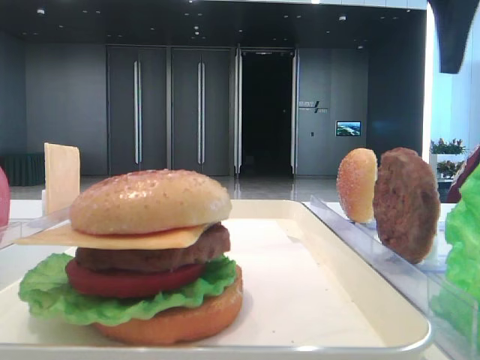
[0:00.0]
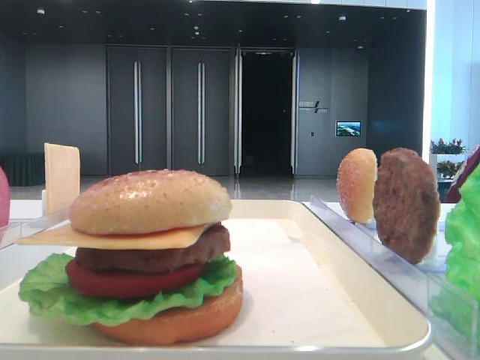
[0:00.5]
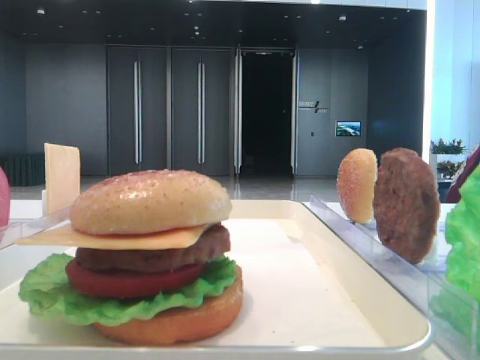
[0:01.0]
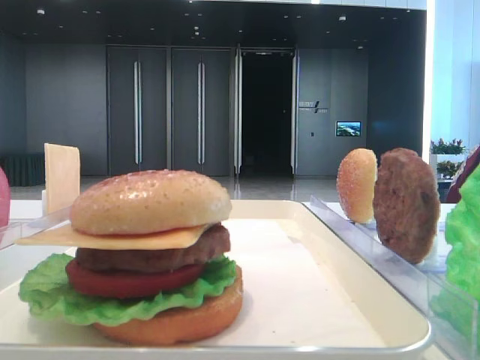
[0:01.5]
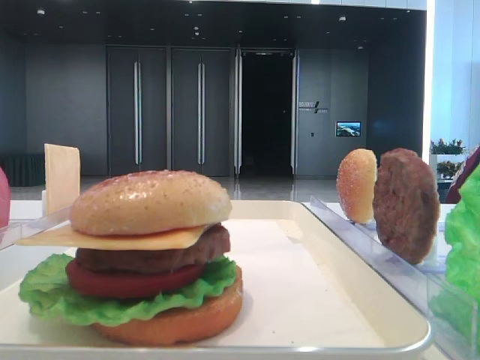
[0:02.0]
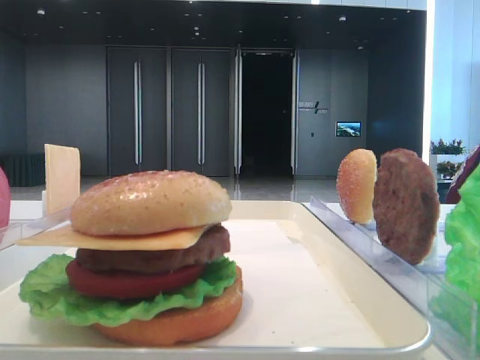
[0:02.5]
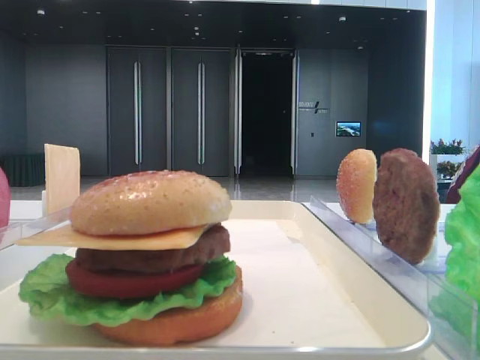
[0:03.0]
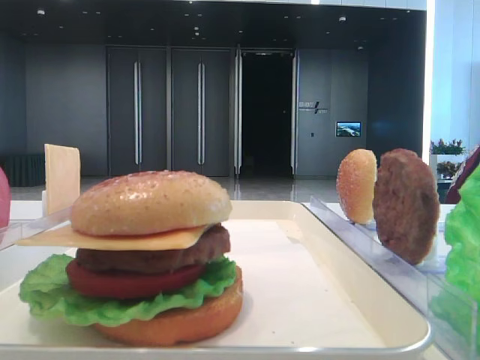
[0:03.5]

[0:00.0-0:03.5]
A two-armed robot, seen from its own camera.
0:00.0 to 0:02.0: The right gripper heads backward, covering roughly 25 cm.

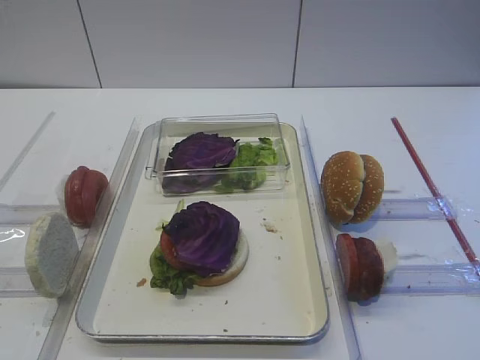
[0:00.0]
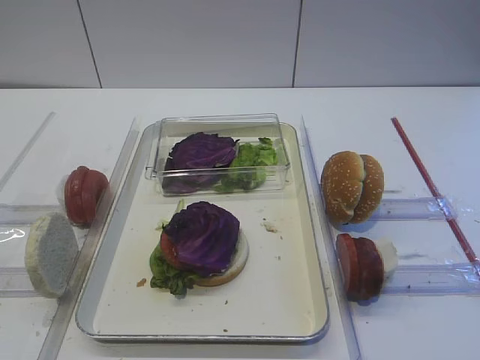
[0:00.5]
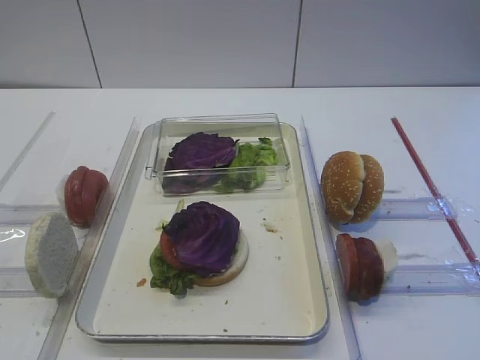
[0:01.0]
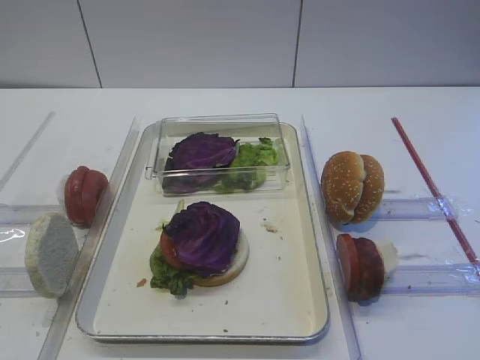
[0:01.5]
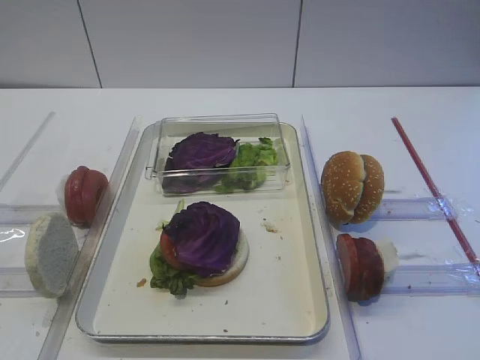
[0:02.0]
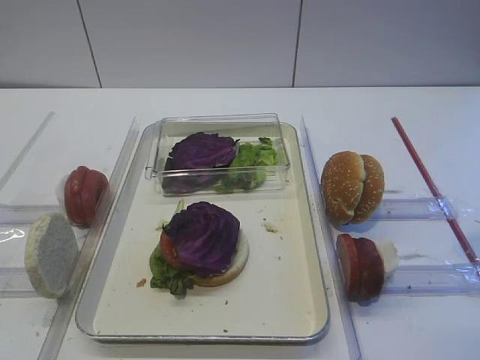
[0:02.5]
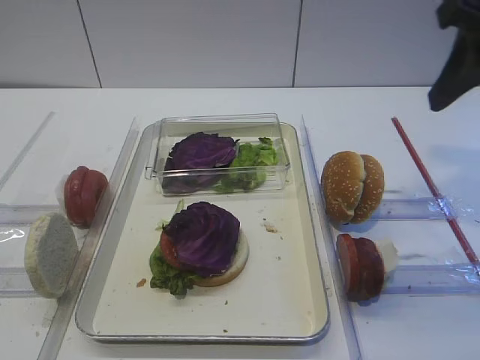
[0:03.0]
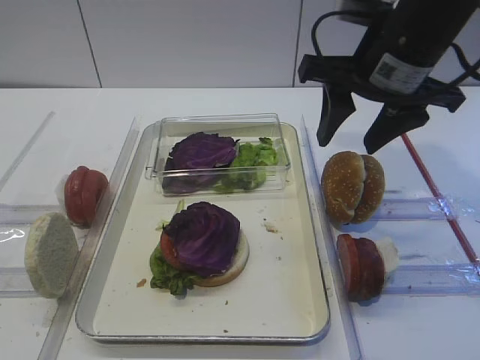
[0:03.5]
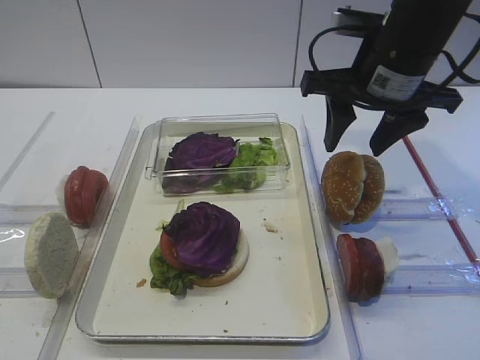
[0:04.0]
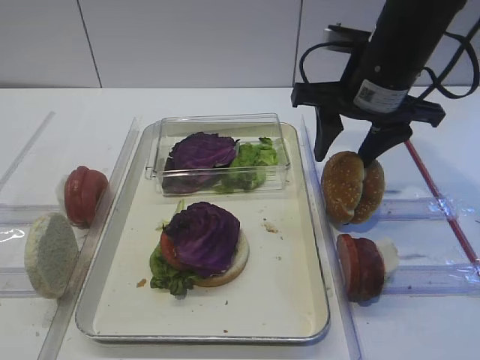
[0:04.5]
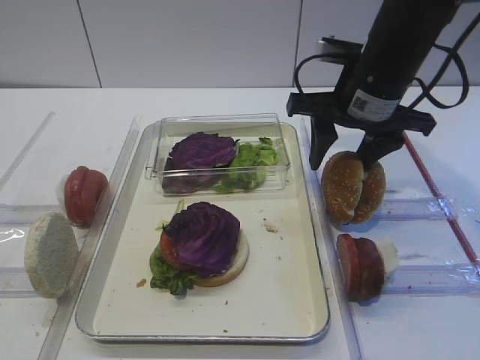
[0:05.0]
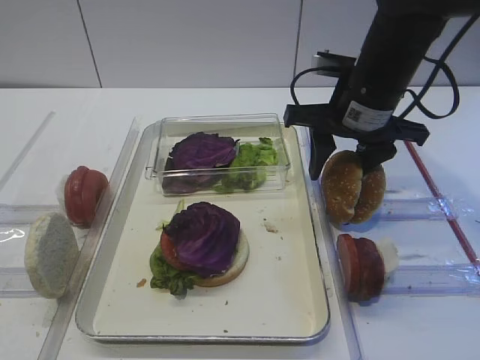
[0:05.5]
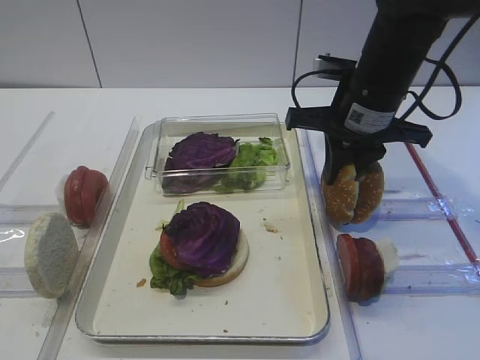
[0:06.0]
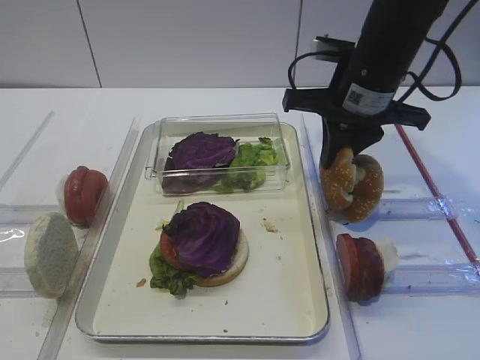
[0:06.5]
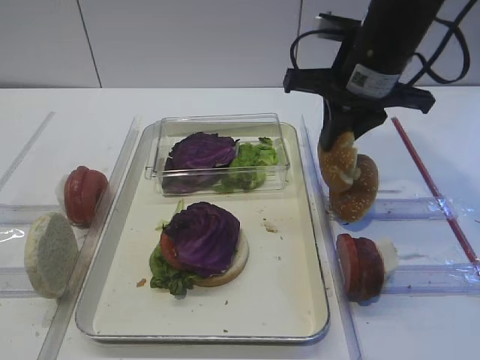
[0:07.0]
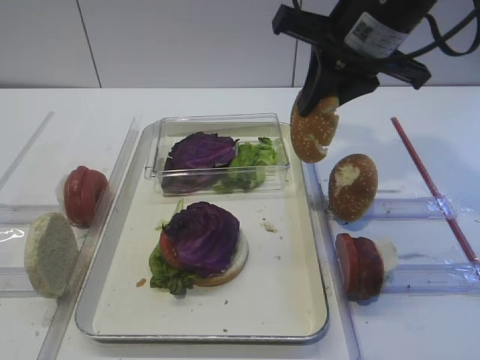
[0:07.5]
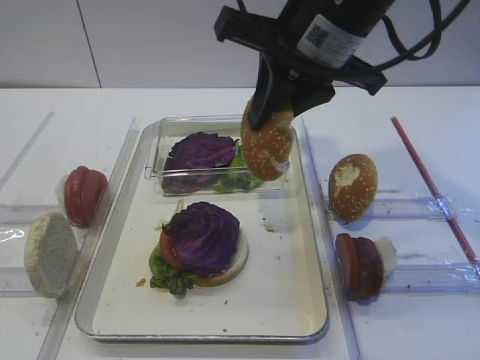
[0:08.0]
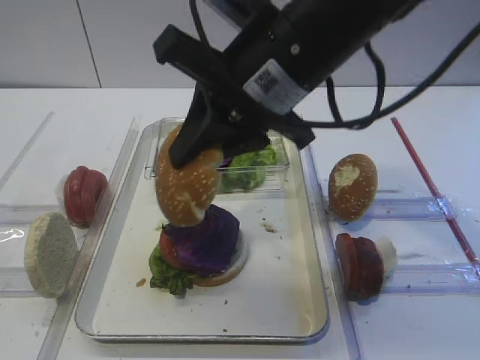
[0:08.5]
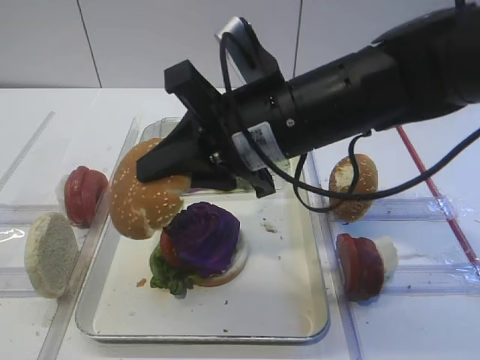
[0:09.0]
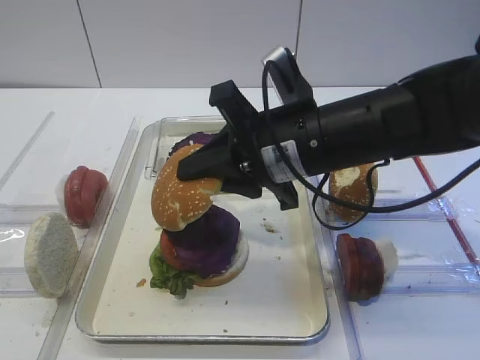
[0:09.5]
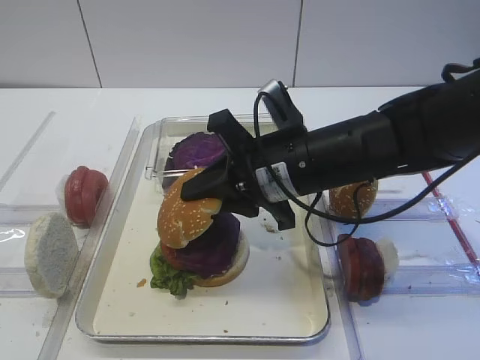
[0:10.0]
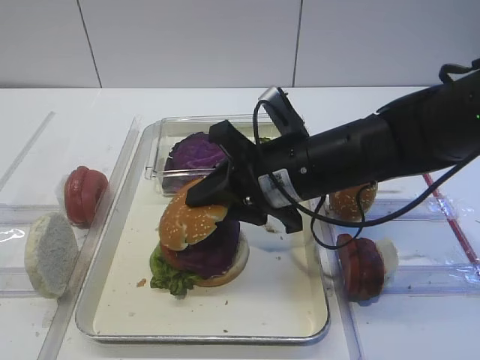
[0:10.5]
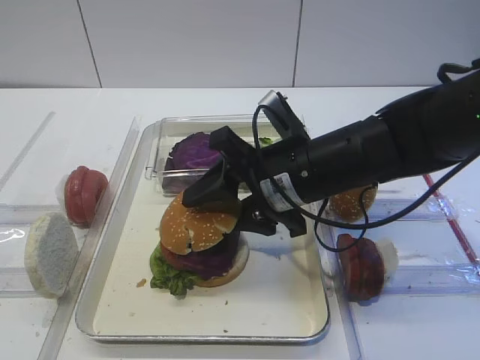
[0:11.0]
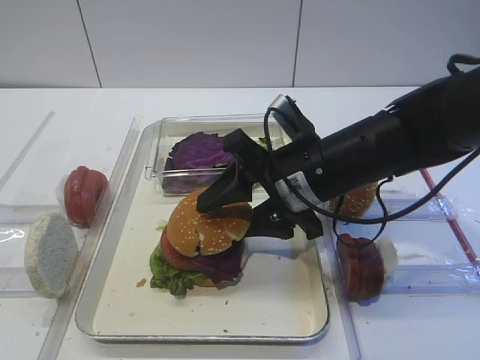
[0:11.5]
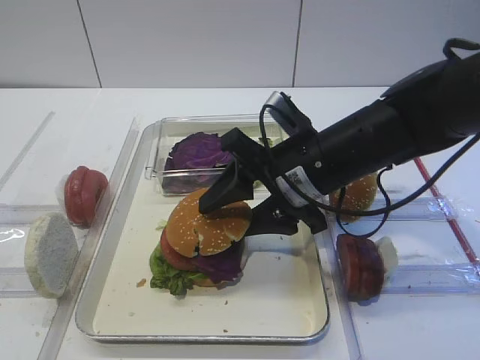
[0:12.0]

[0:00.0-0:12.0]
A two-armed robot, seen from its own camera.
Step, 0:00.0 to 0:07.0: Pick up the hamburger lid with the right gripper.
0:02.0 to 0:04.0: The right gripper goes about 25 cm forward and to the left.
0:04.0 to 0:06.0: The right gripper changes place by roughly 5 cm, and closes up.
0:06.0 to 0:08.0: The right gripper moves upward, to the left and backward, approximately 15 cm.
0:08.0 to 0:10.0: The right gripper goes roughly 15 cm downward.
0:10.0 to 0:12.0: The right gripper opens its fingers.

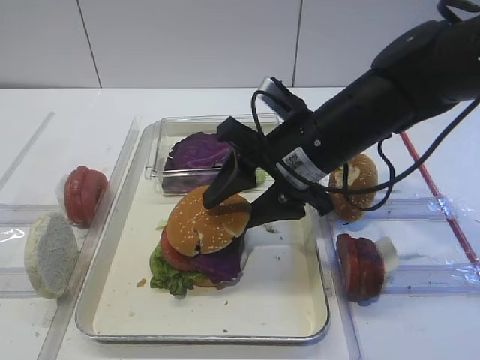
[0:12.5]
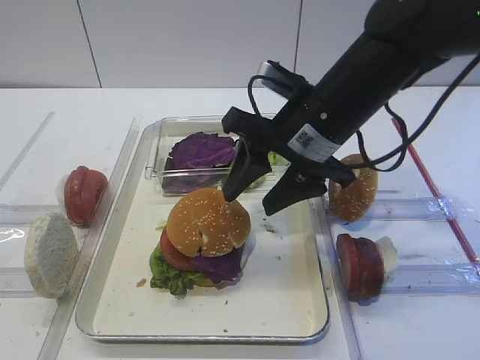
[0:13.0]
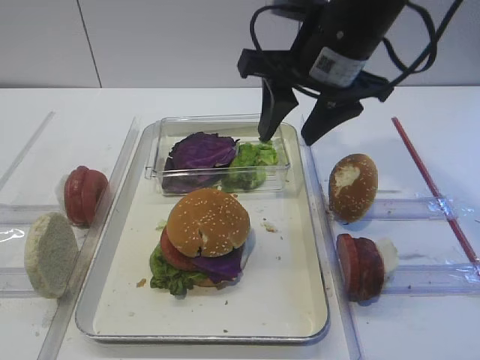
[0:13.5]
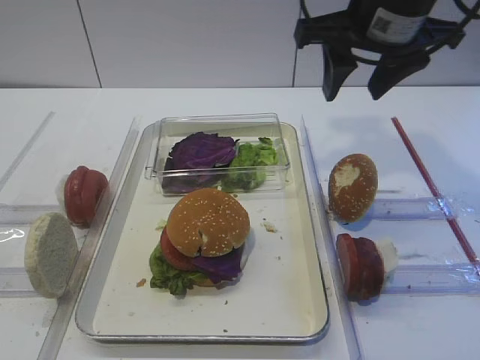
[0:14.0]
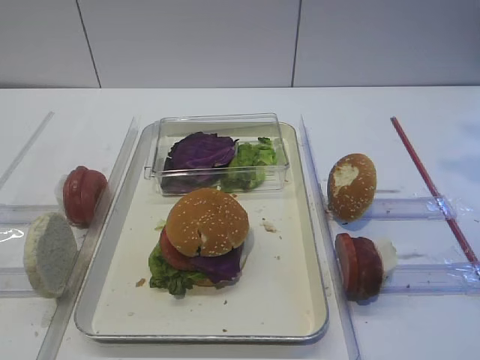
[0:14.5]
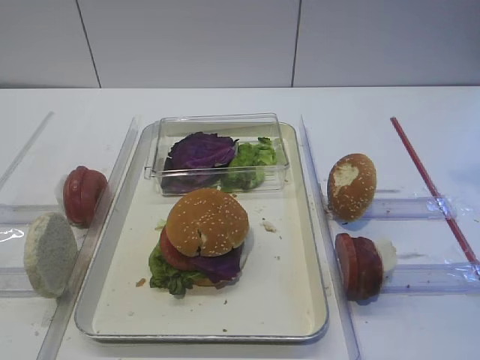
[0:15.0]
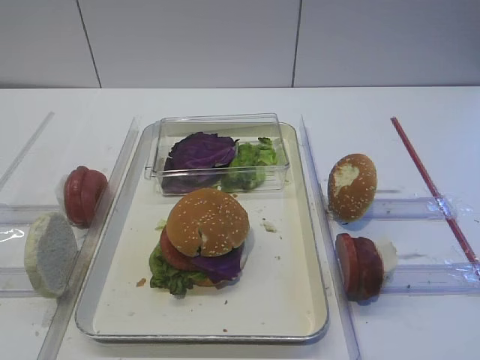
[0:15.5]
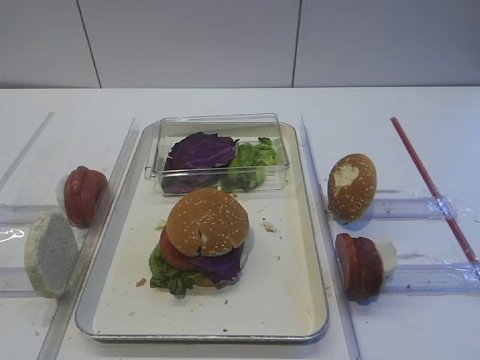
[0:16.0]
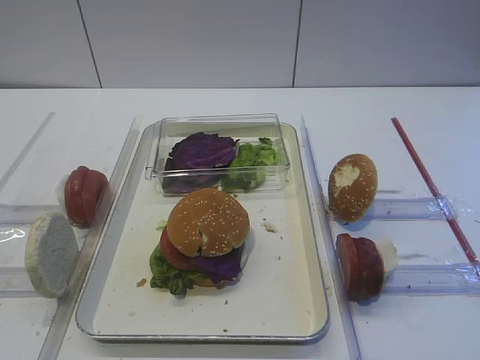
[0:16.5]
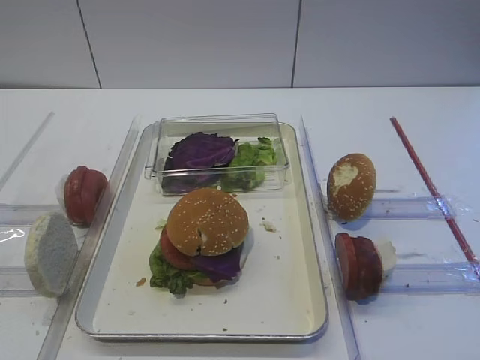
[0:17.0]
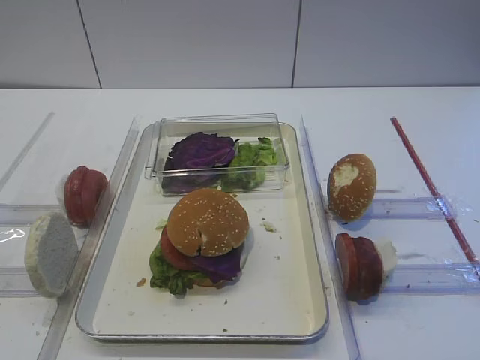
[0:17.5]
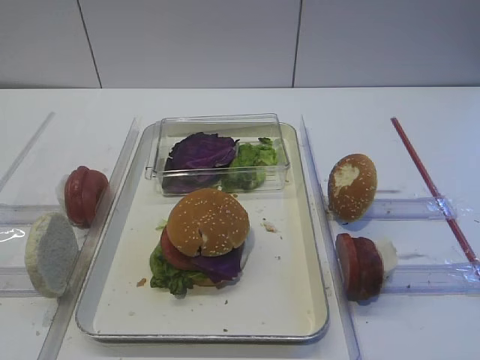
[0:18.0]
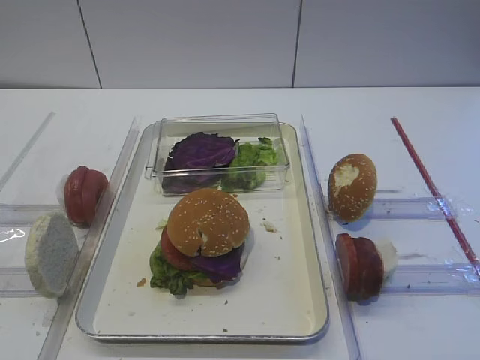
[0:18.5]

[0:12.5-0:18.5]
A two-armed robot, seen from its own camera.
0:12.5 to 0:14.5: The right gripper goes roughly 25 cm to the right and upward.

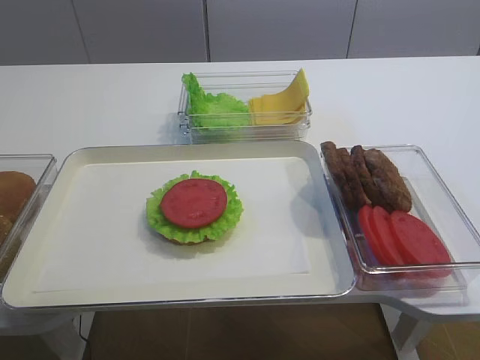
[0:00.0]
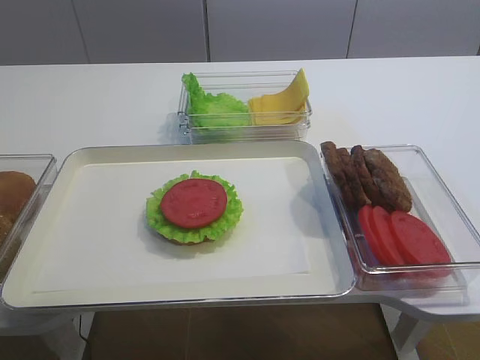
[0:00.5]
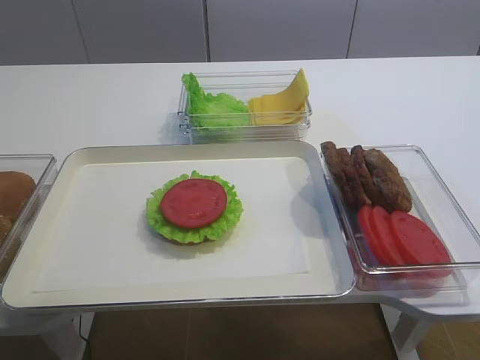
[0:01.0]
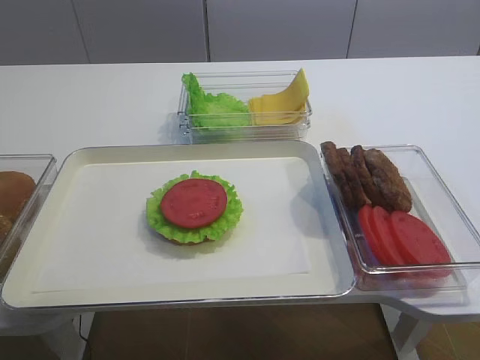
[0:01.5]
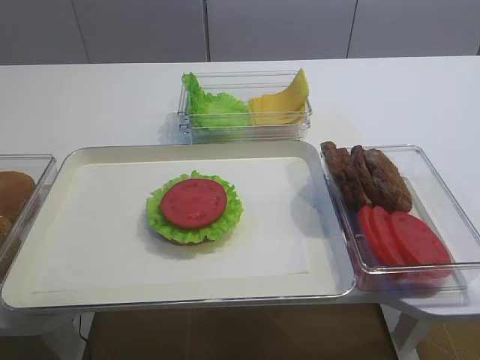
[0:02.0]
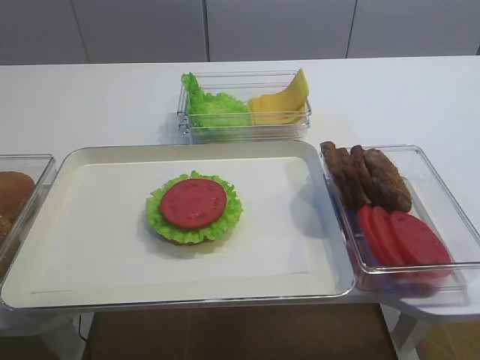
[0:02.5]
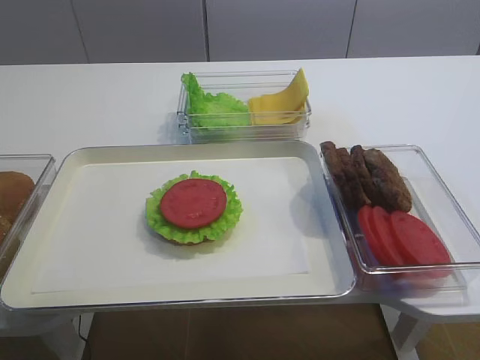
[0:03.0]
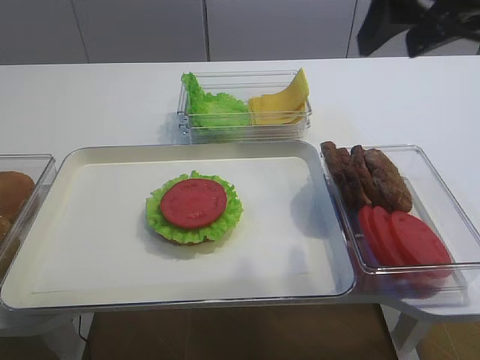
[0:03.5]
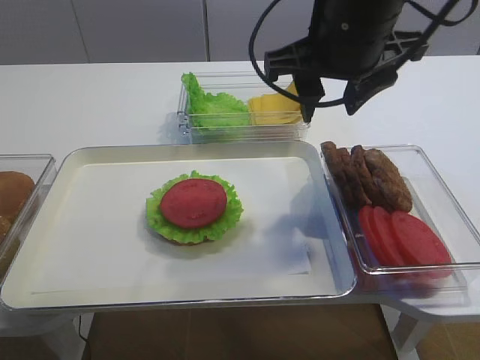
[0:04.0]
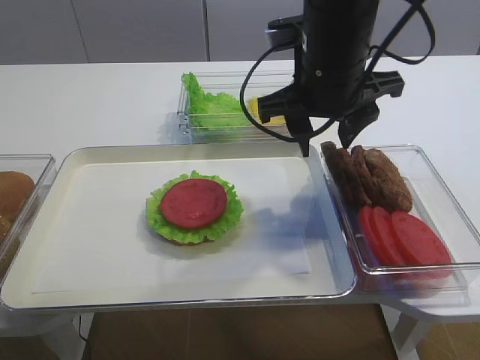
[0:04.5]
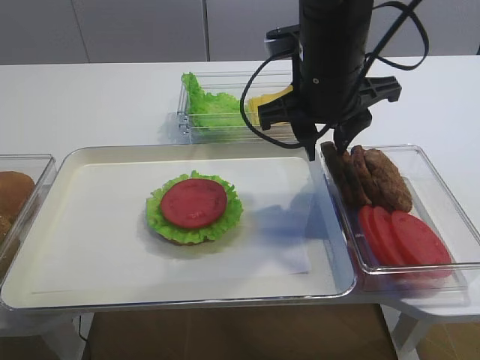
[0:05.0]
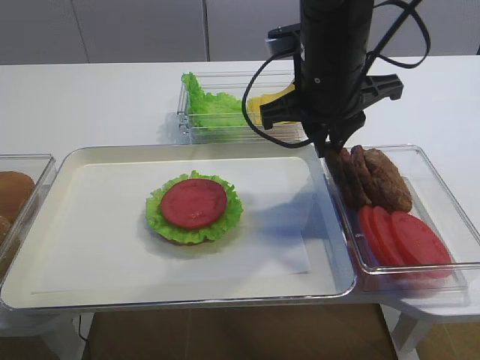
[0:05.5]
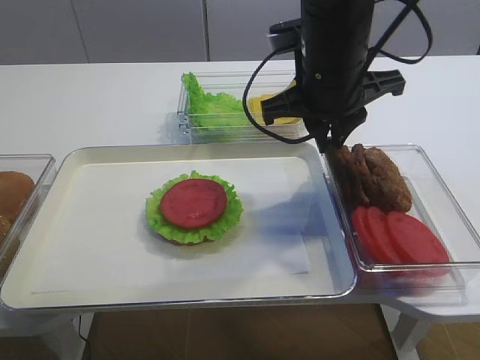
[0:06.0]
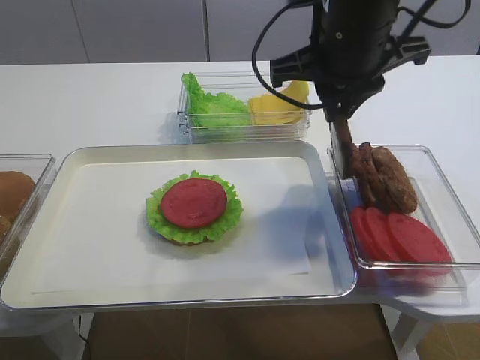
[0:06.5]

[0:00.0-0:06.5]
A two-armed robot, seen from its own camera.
0:02.0 to 0:04.5: The right gripper heads forward and to the left, covering about 35 cm.
0:04.5 to 0:06.5: The right gripper closes.
